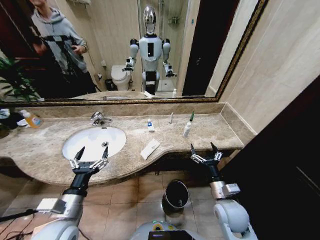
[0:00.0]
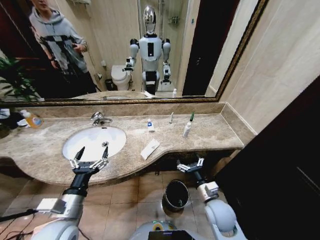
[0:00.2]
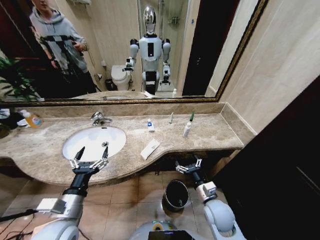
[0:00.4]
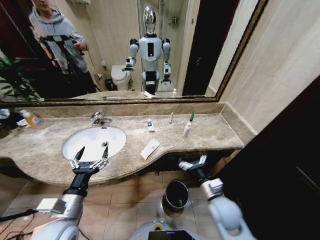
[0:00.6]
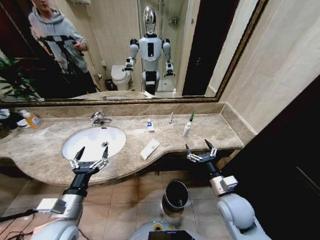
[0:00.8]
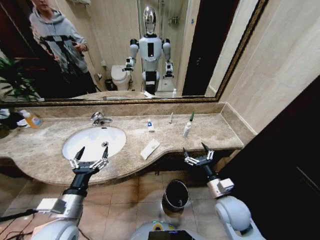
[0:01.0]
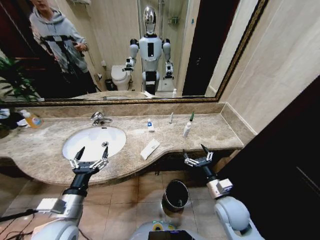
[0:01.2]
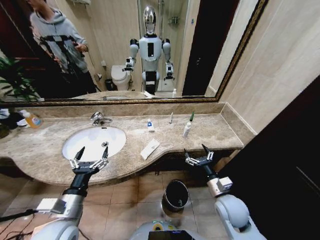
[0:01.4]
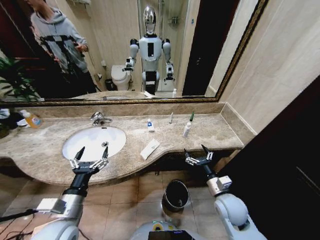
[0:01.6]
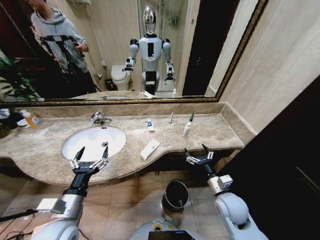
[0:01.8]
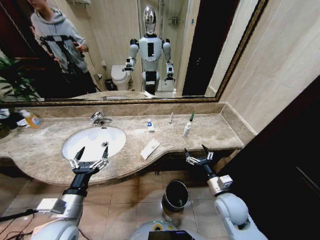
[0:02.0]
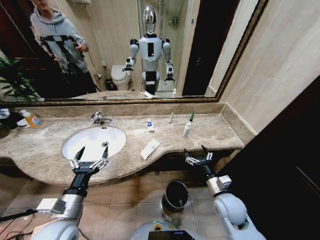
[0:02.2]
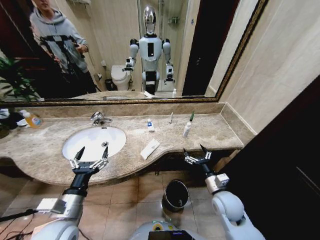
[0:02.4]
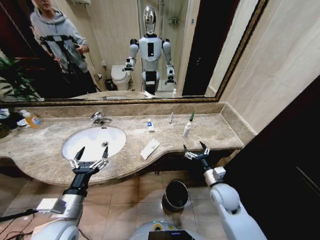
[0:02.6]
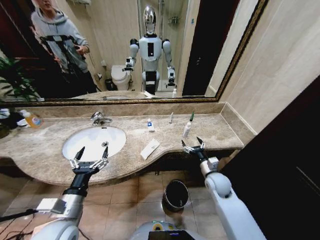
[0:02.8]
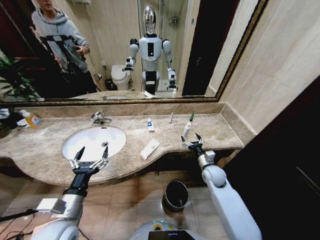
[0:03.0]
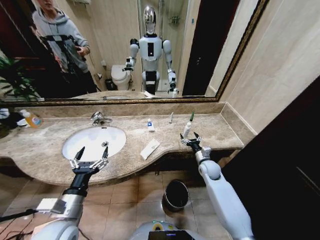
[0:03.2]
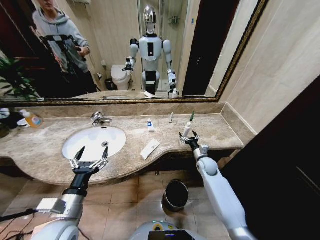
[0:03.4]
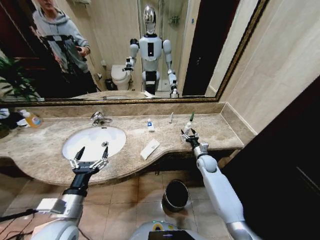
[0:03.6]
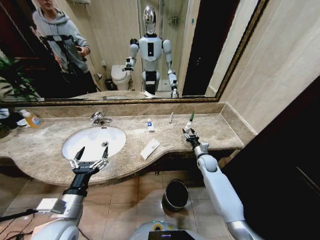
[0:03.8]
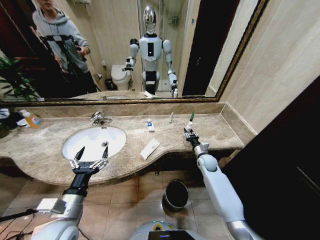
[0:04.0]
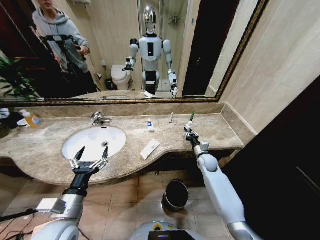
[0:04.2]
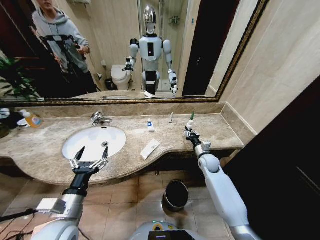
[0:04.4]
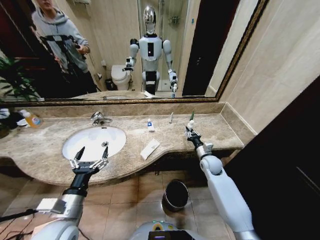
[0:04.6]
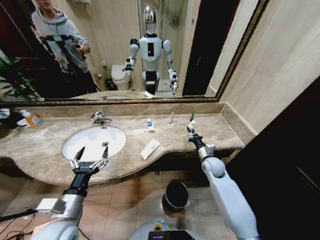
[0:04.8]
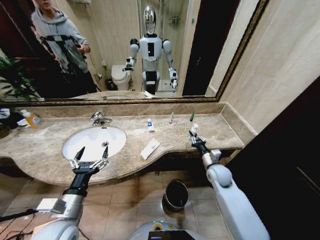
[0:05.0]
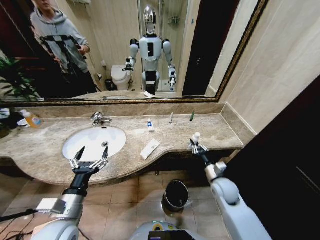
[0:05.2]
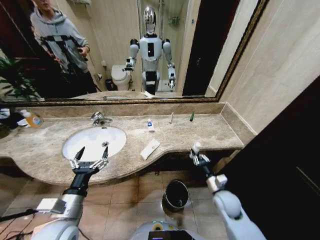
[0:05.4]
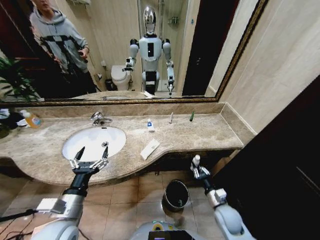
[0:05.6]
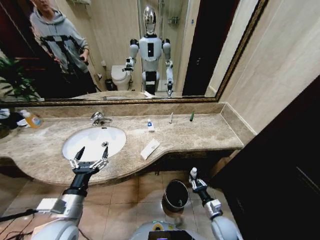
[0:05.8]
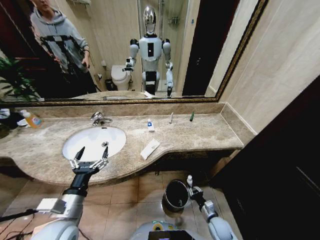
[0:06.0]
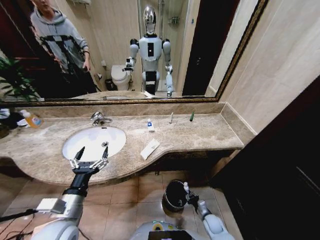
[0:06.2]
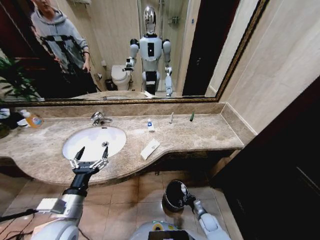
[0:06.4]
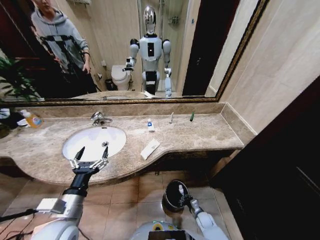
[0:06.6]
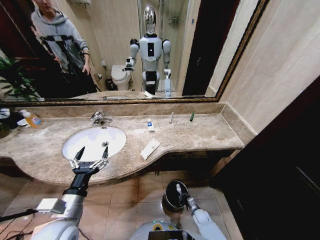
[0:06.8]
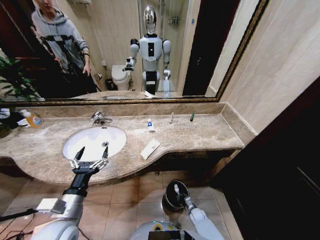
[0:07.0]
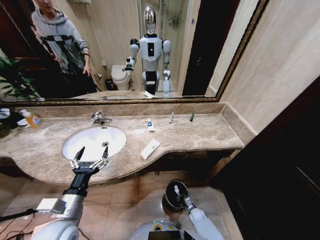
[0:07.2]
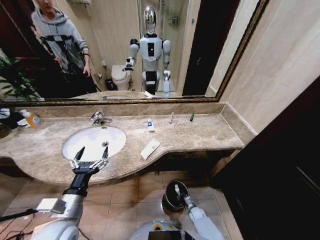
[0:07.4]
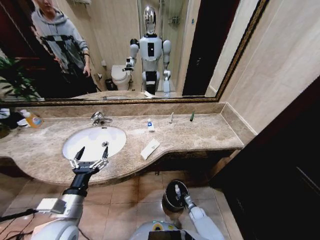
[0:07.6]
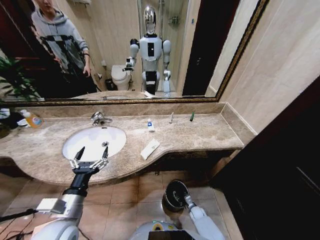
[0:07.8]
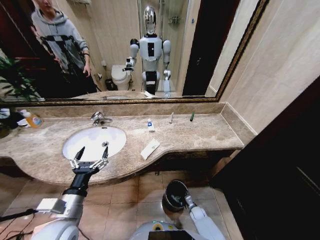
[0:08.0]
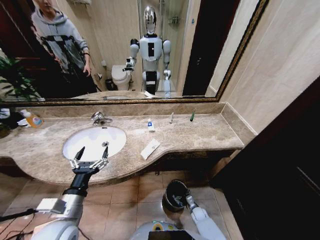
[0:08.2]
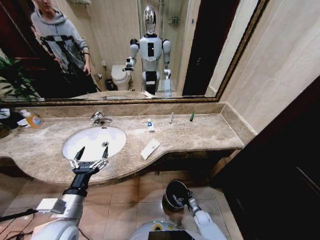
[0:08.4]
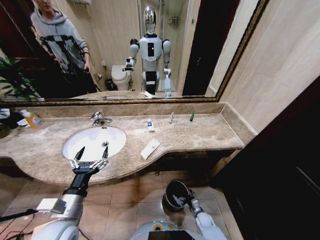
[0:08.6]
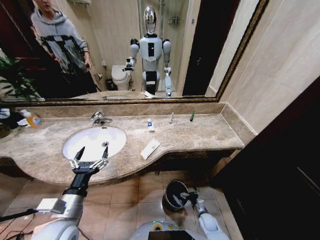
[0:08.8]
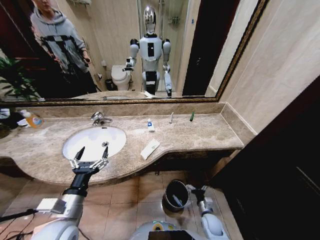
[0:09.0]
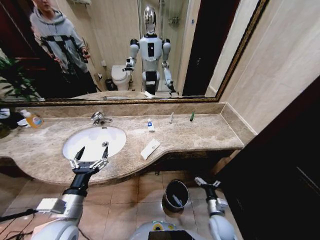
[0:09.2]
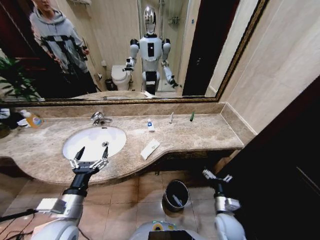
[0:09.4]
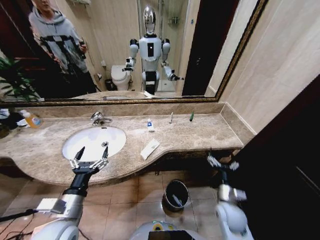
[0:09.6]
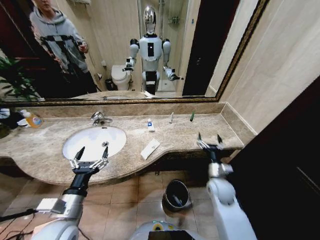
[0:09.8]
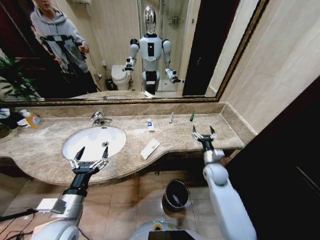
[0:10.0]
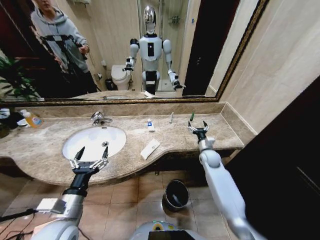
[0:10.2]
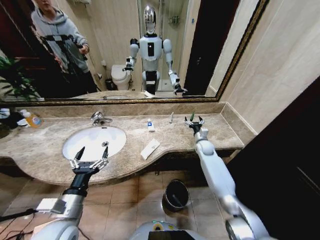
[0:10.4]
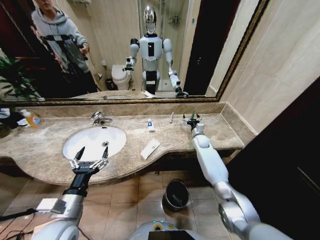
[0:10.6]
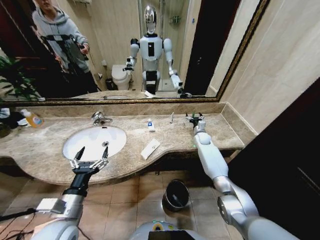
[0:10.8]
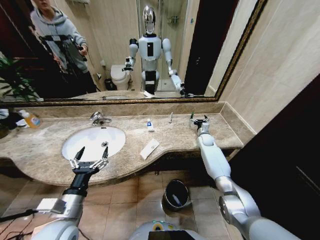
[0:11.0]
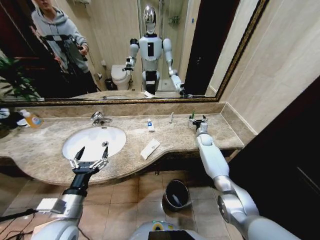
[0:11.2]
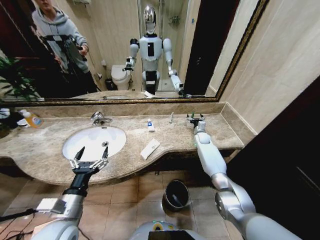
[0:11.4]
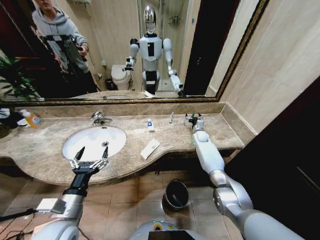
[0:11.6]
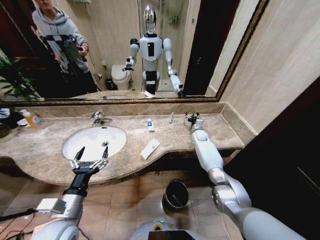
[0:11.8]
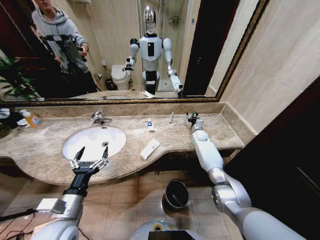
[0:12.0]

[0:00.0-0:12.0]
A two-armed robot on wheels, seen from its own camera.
Task of the whole recording: Pick up the trash from the sink and place it in the trash bin.
0:01.6 to 0:03.0: The right gripper travels forward by some 15 cm.
0:03.0 to 0:04.4: The right gripper shifts some 5 cm forward, and closes.
0:04.4 to 0:06.0: The right gripper moves backward and downward, some 30 cm.
0:06.0 to 0:07.6: The right gripper goes roughly 15 cm downward and forward.
0:07.6 to 0:09.0: The right gripper moves upward and backward, approximately 15 cm, and opens.
0:09.0 to 0:10.4: The right gripper is displaced forward and upward by about 40 cm.
0:10.4 to 0:12.0: The right gripper moves forward, roughly 10 cm.

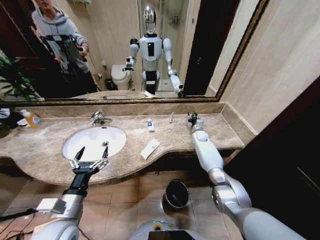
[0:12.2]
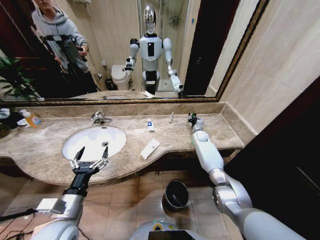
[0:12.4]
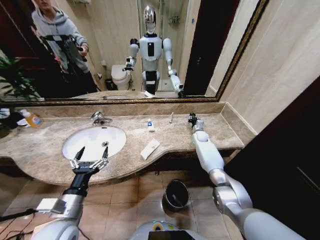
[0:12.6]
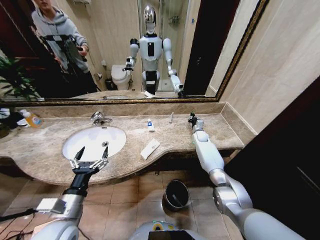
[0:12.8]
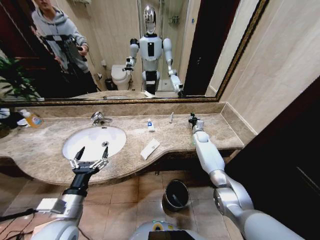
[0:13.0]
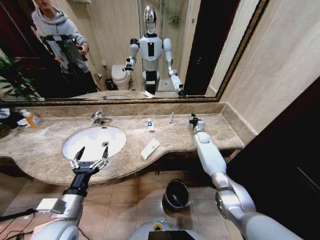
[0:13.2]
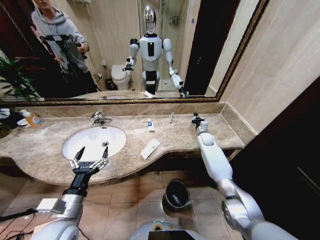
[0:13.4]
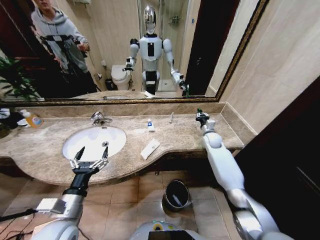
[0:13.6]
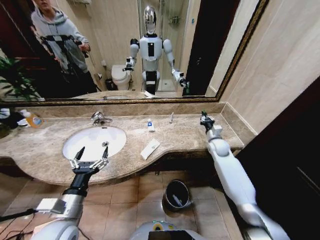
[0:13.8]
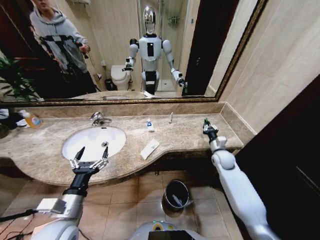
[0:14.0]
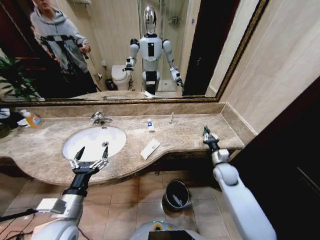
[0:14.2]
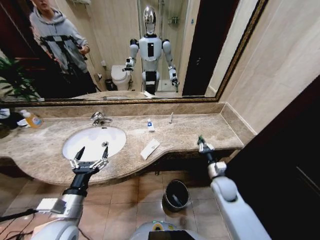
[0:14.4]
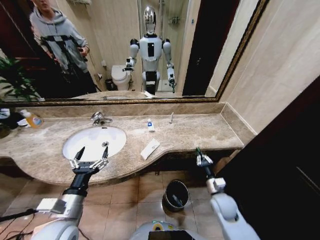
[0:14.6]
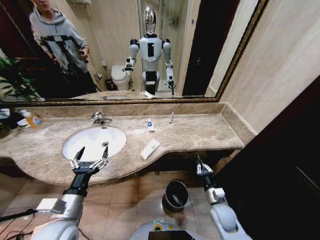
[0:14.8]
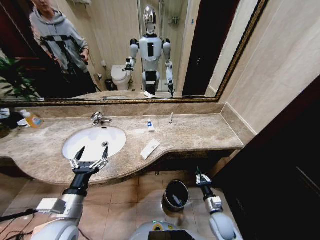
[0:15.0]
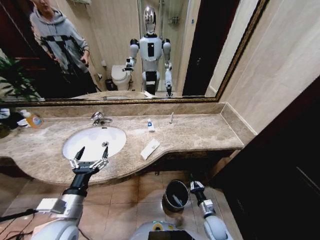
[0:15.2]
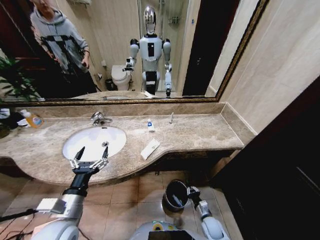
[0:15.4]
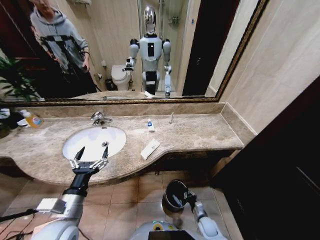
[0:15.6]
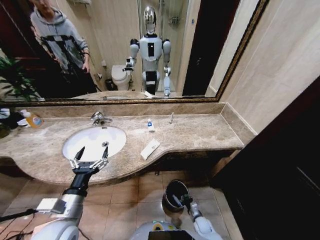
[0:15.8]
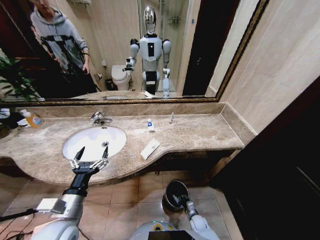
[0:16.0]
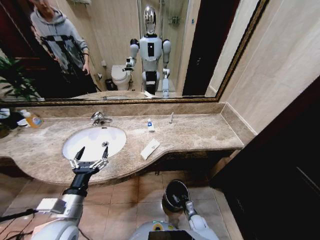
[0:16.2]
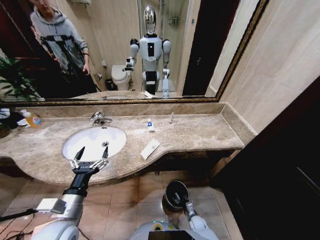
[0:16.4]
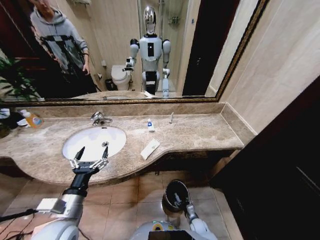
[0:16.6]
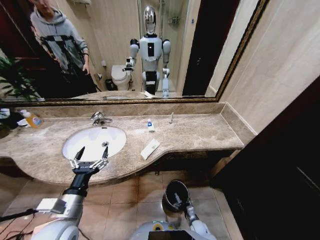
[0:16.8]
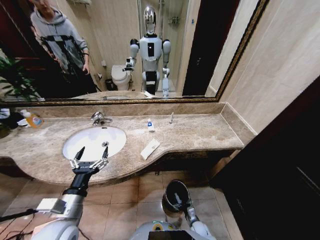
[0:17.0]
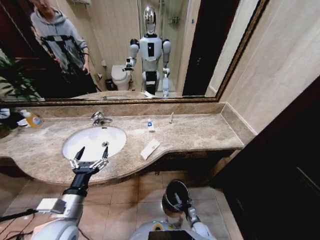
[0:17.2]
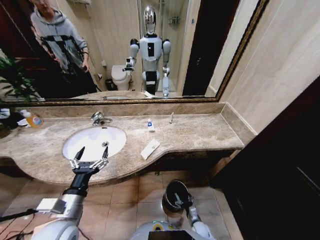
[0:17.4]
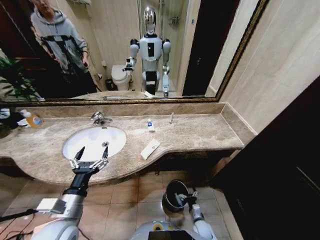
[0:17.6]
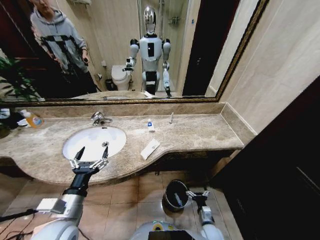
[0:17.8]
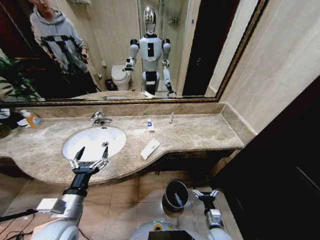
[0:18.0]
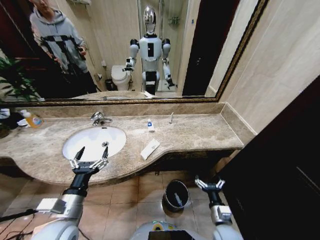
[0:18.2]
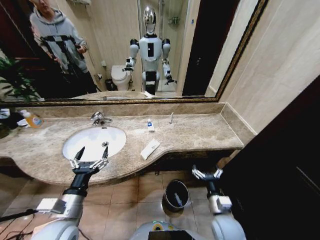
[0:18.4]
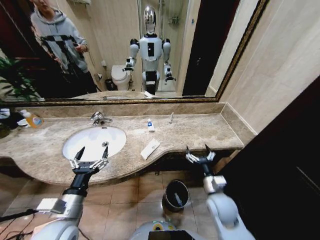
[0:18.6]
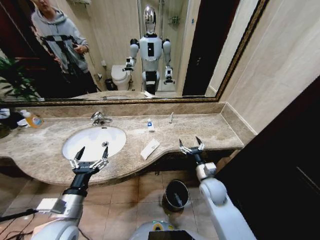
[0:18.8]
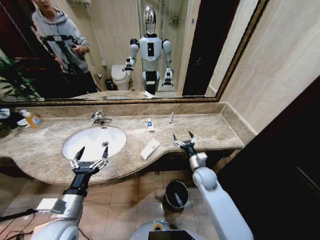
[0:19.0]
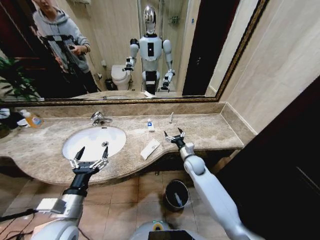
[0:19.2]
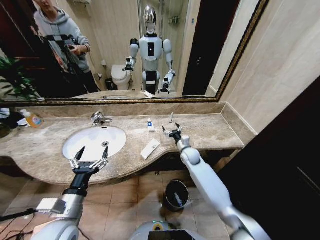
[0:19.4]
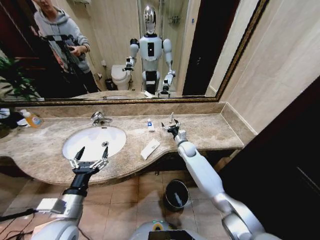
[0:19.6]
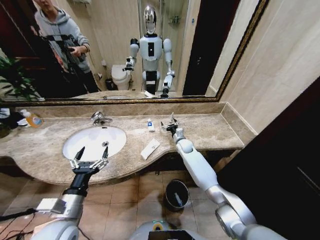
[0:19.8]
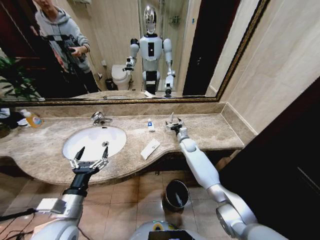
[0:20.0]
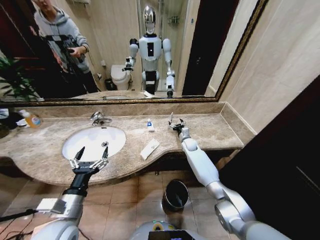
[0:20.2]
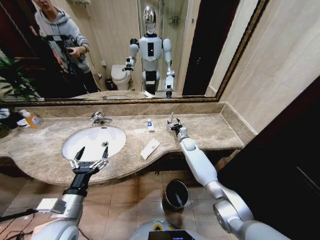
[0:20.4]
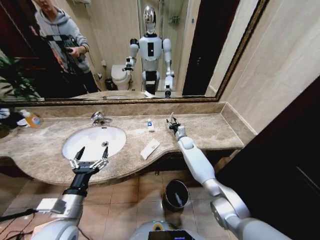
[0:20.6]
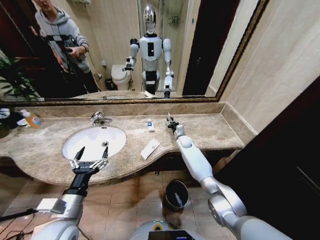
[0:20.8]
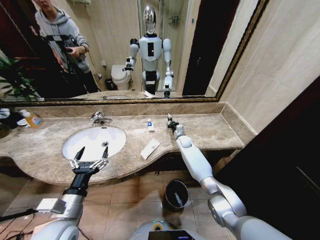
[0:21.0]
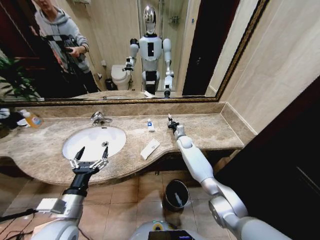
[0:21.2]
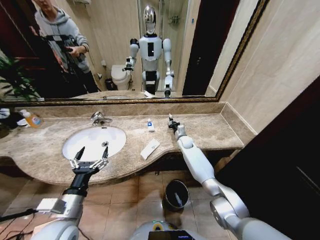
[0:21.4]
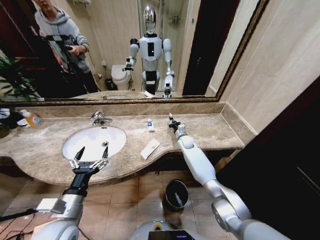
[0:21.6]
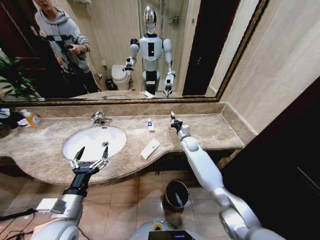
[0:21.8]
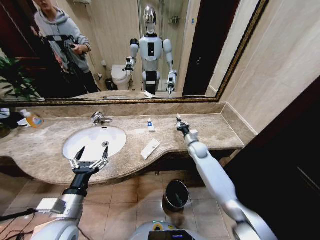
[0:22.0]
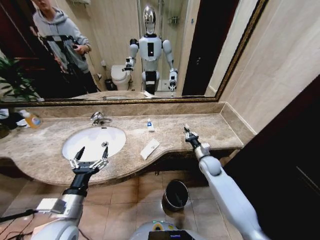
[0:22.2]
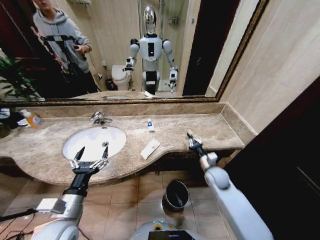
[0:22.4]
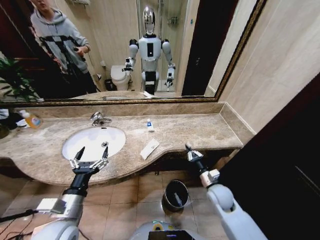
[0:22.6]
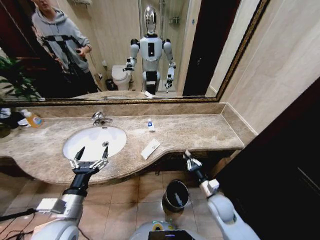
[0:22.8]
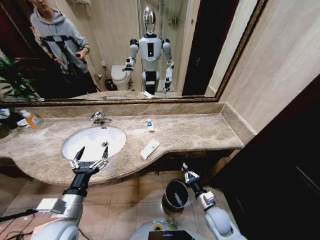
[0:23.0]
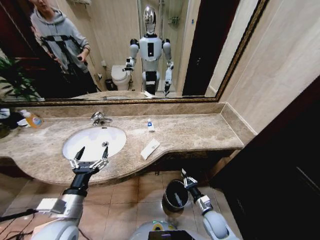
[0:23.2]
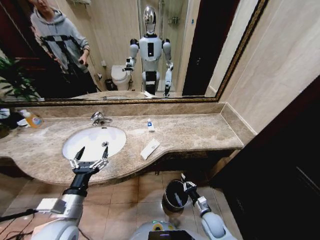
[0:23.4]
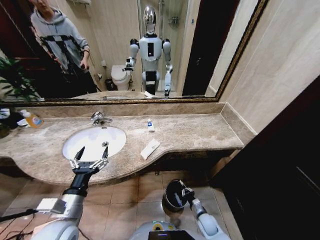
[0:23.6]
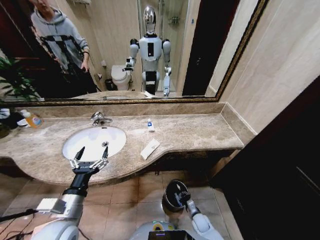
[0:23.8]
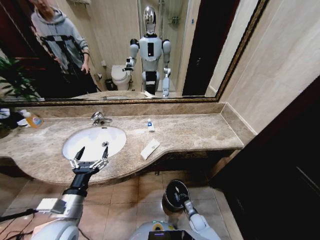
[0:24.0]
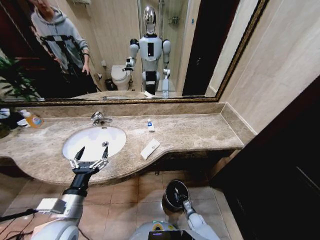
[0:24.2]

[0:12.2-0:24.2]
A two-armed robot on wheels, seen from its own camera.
Task of the whole recording: Pick up the trash from the sink and place it in the trash bin.
0:12.2 to 0:13.8: The right gripper shifts about 15 cm backward, and closes.
0:13.8 to 0:15.2: The right gripper heads backward and downward, covering approximately 35 cm.
0:15.2 to 0:16.6: The right gripper travels downward by approximately 15 cm, and opens up.
0:16.6 to 0:18.2: The right gripper moves upward, some 25 cm.
0:18.2 to 0:19.8: The right gripper travels forward by some 40 cm.
0:19.8 to 0:21.2: The right gripper closes its fingers.
0:21.2 to 0:22.6: The right gripper shifts approximately 30 cm backward.
0:22.6 to 0:24.2: The right gripper travels downward by about 30 cm.
